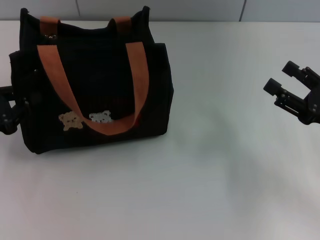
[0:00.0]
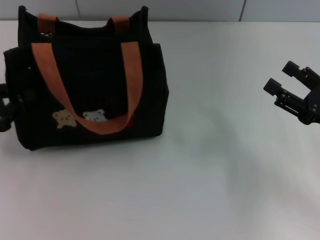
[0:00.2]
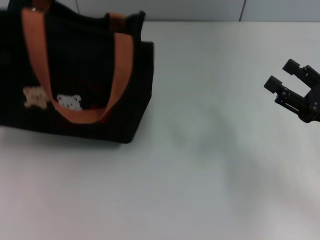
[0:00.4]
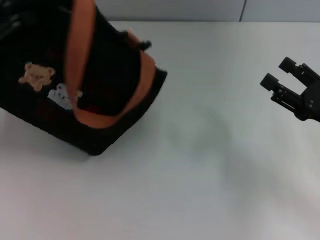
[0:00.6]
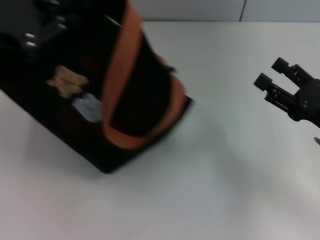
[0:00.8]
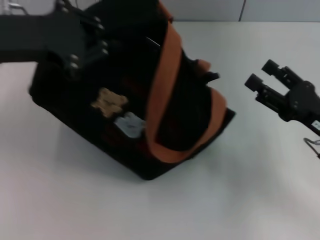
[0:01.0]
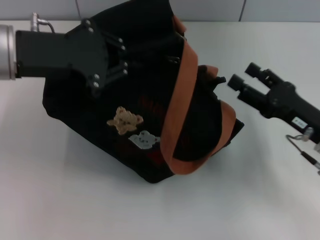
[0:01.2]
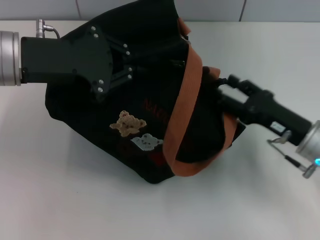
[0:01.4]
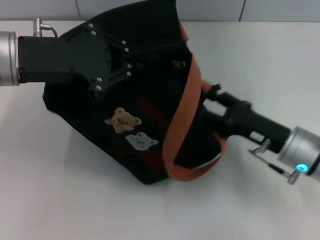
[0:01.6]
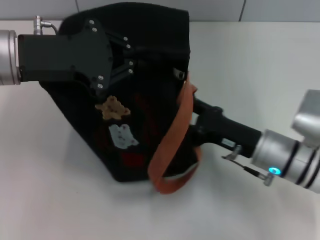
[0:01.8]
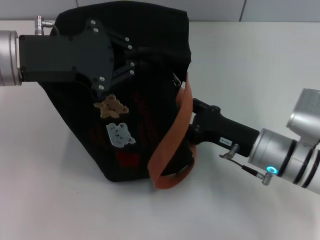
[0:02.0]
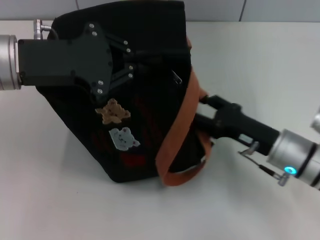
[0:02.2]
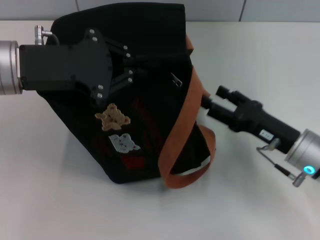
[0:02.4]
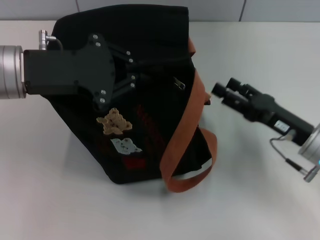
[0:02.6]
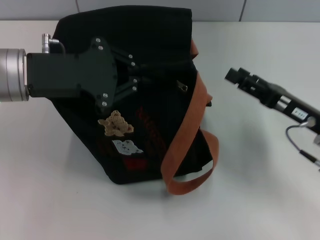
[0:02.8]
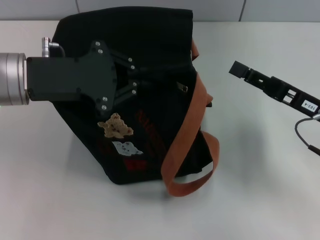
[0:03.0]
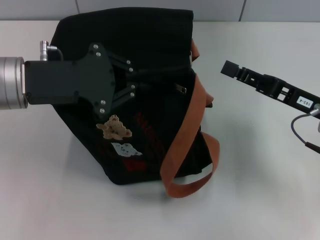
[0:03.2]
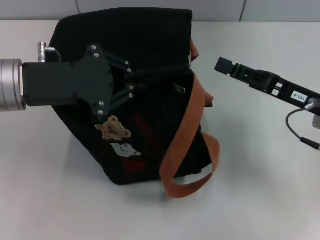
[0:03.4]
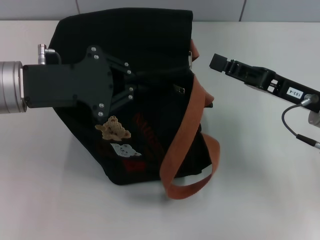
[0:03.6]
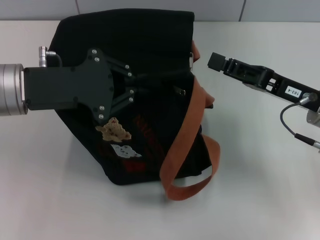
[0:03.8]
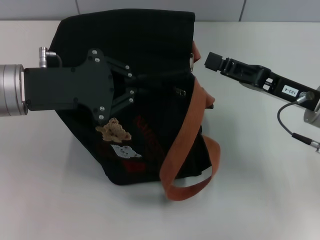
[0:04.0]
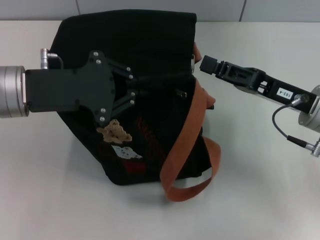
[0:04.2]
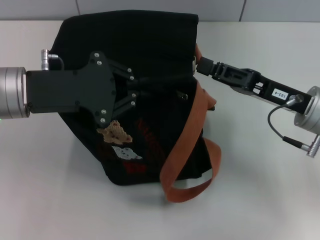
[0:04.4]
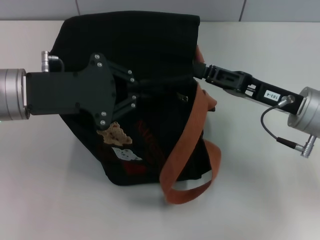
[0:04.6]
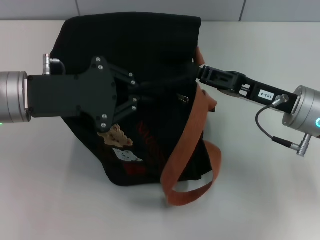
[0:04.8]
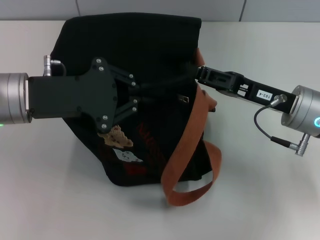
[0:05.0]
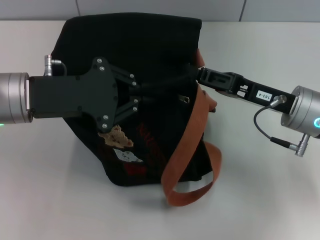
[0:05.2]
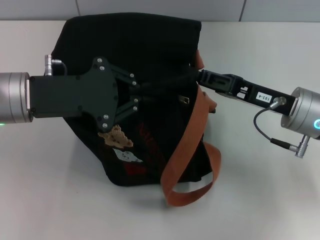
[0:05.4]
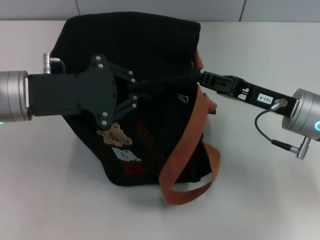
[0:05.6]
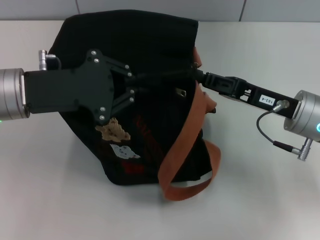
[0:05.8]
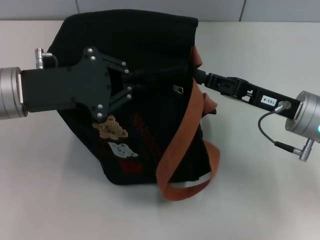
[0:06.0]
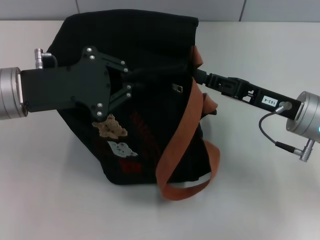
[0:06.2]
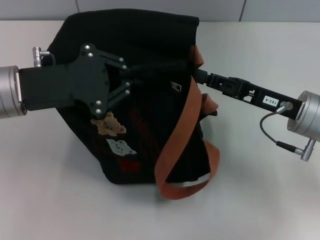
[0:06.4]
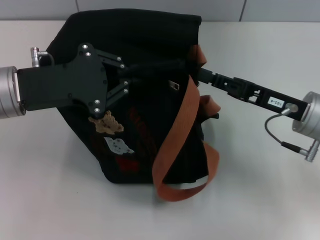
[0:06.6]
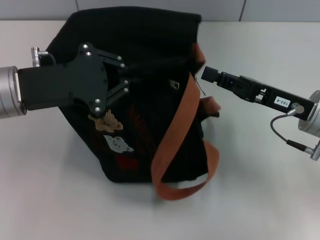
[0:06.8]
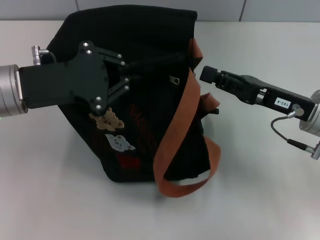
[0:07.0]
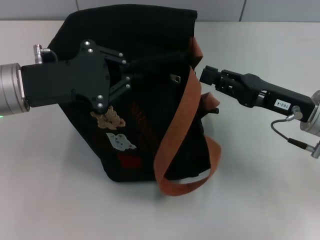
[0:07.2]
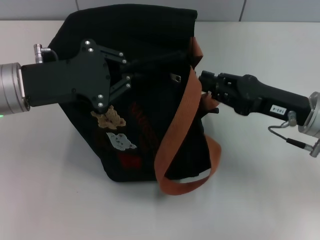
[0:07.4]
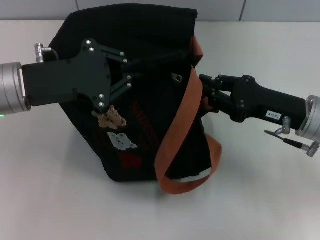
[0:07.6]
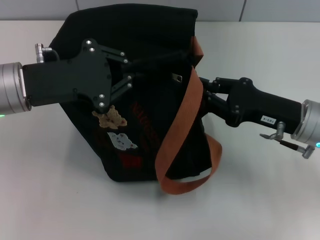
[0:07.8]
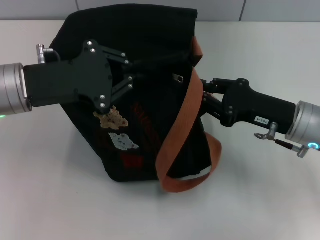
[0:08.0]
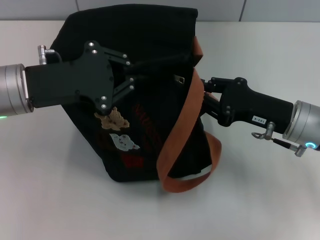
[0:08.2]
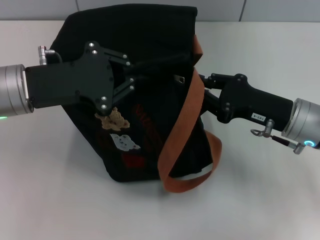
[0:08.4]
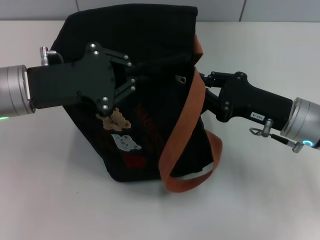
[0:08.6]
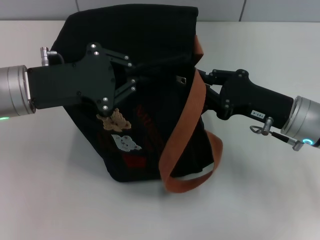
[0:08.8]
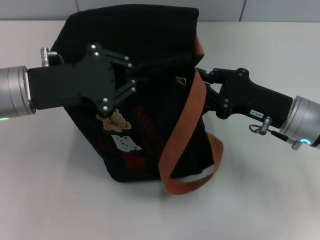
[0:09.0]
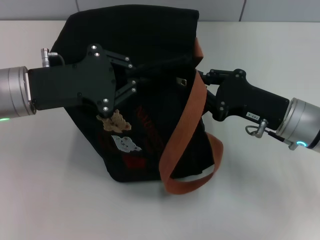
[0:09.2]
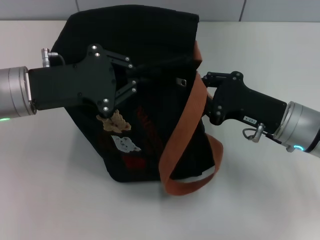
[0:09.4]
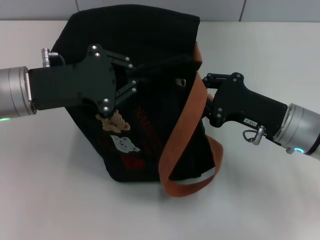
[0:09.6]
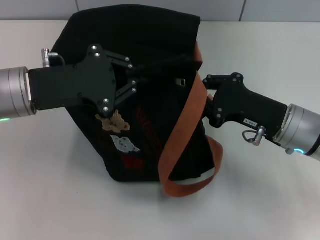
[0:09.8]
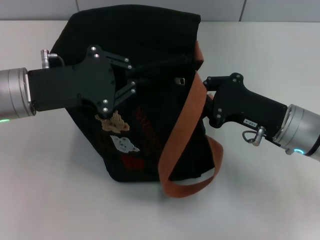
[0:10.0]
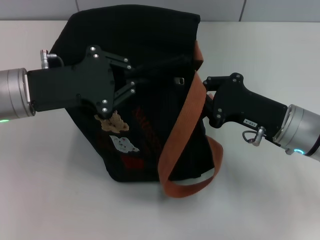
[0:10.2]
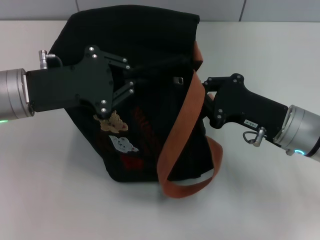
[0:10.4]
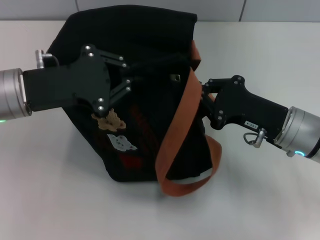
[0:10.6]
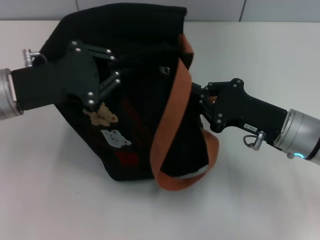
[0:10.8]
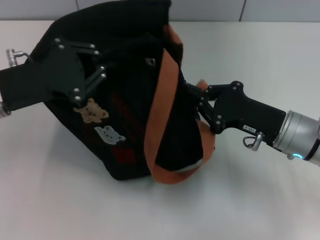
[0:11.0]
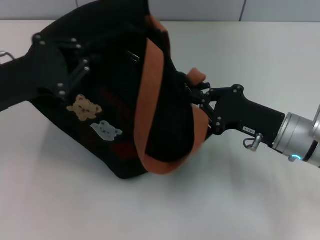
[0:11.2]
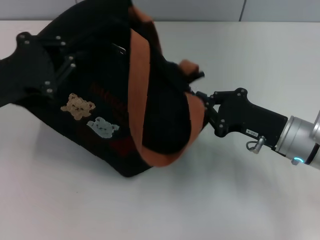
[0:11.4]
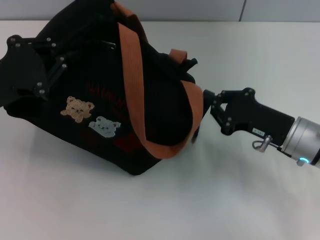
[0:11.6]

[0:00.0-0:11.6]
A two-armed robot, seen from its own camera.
0:00.0 to 0:01.4: The left gripper shifts some 20 cm to the right, upward and forward. Meanwhile the right gripper moves to the left, some 5 cm.
0:01.4 to 0:02.8: The right gripper reaches roughly 5 cm to the left, then returns.
0:02.8 to 0:04.4: The right gripper shifts by roughly 5 cm, and closes up.
0:04.4 to 0:07.2: The grippers make only small movements.
0:08.8 to 0:10.2: The grippers stay close to where they were, moving slightly.
0:10.2 to 0:11.6: The left gripper heads to the left, covering approximately 5 cm.

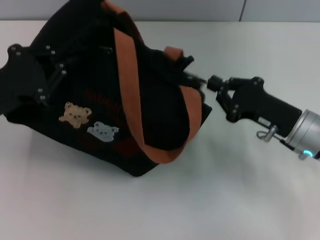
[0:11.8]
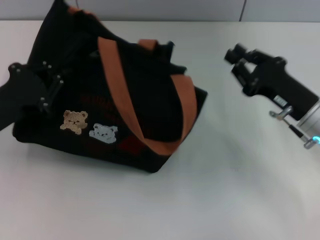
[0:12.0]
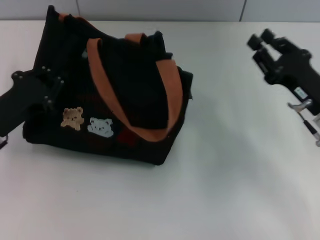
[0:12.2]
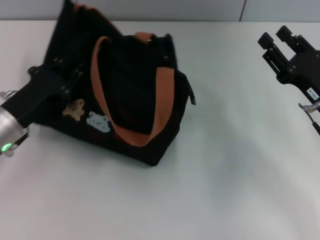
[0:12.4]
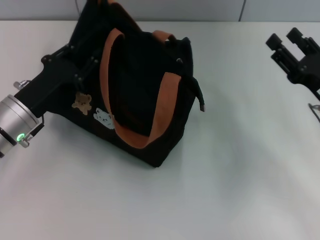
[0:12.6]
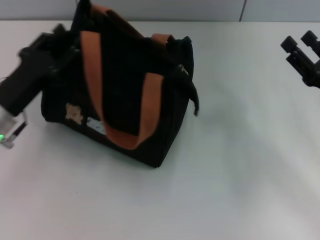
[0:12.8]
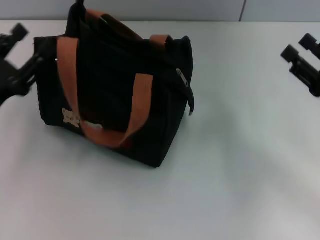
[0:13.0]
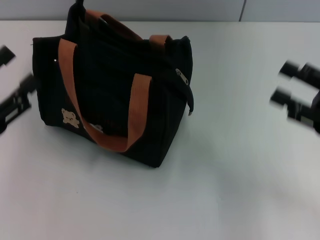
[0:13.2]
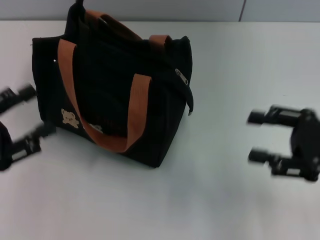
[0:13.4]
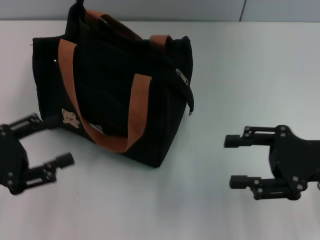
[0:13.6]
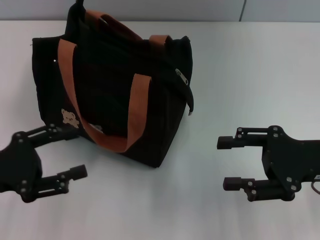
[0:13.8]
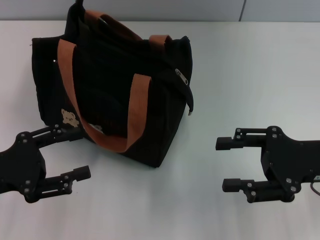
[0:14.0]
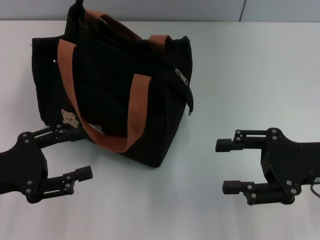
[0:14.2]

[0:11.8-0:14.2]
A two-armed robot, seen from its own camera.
Step, 0:12.0 to 0:12.8: Grab the bag with your left hand.
0:11.8 to 0:13.0: The left gripper opens up, while the right gripper moves to the right, some 10 cm, and opens its fingers.
0:13.0 to 0:14.2: The left gripper is displaced backward by roughly 5 cm. Meanwhile the right gripper ends up some 5 cm from where it was.

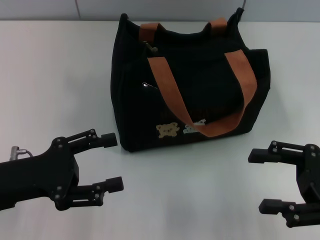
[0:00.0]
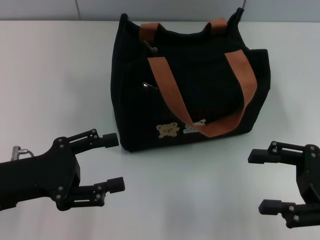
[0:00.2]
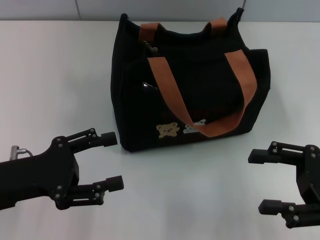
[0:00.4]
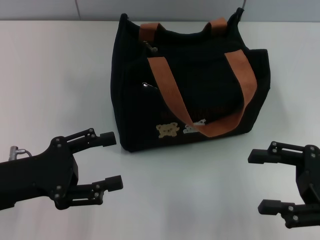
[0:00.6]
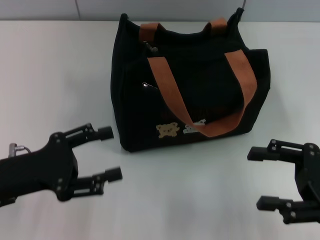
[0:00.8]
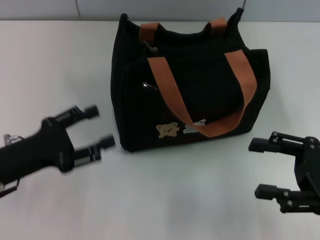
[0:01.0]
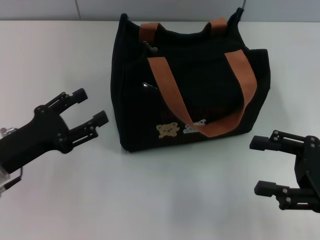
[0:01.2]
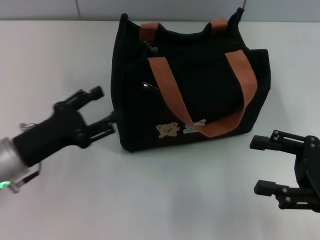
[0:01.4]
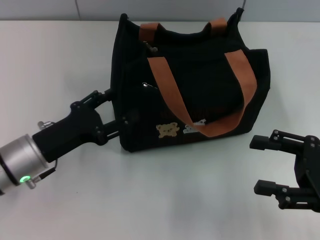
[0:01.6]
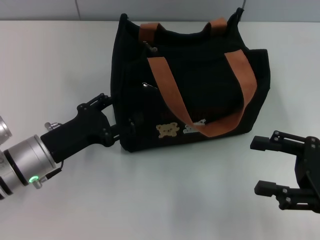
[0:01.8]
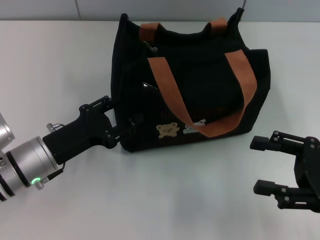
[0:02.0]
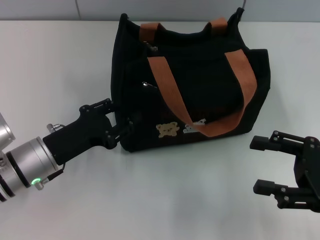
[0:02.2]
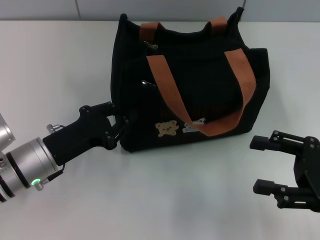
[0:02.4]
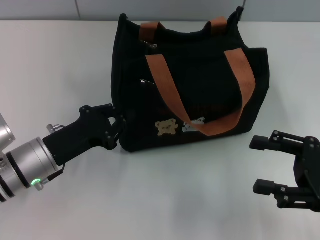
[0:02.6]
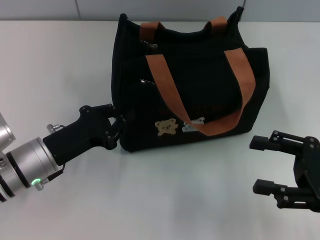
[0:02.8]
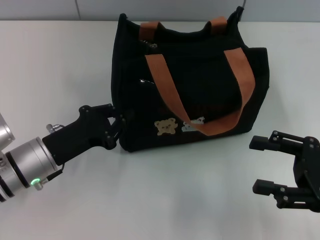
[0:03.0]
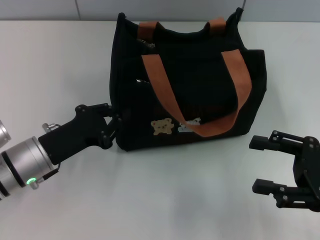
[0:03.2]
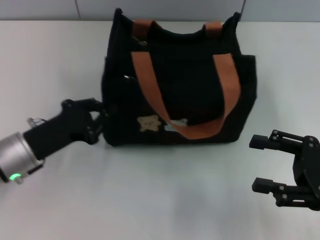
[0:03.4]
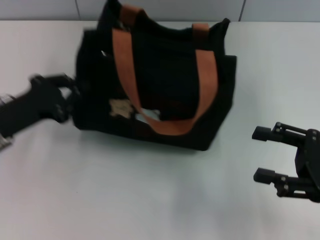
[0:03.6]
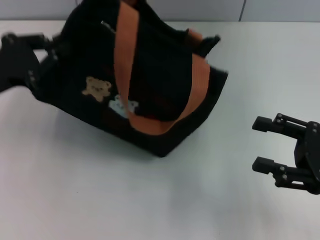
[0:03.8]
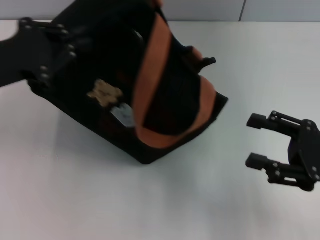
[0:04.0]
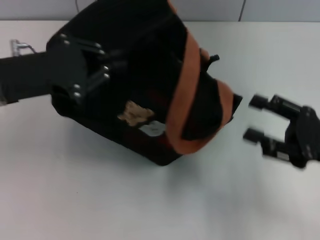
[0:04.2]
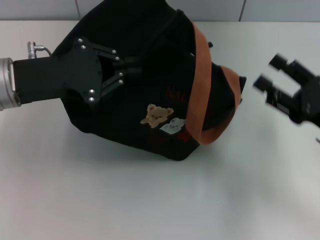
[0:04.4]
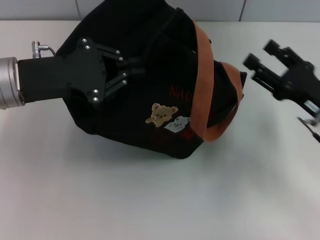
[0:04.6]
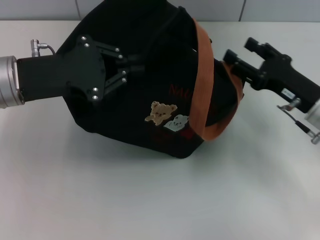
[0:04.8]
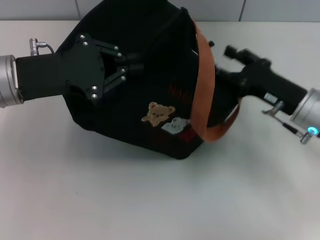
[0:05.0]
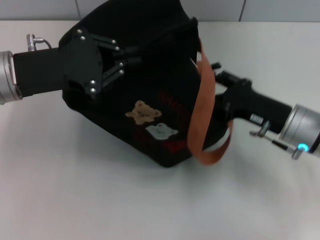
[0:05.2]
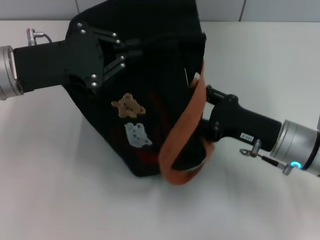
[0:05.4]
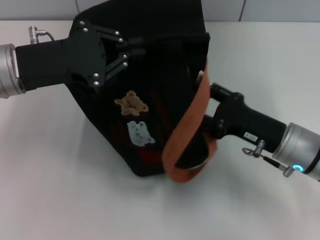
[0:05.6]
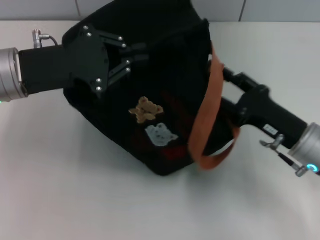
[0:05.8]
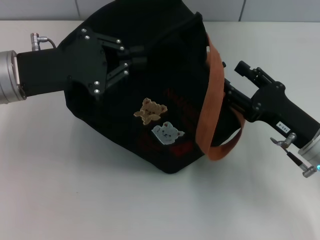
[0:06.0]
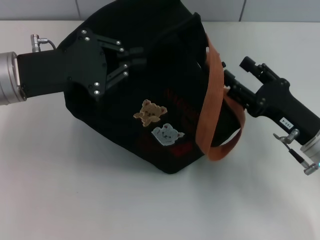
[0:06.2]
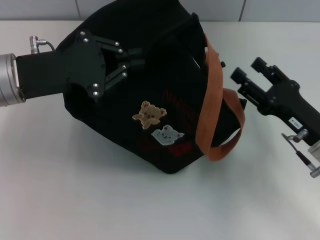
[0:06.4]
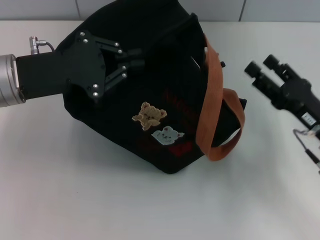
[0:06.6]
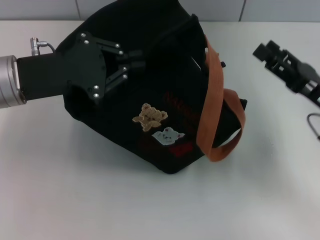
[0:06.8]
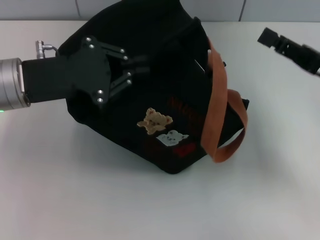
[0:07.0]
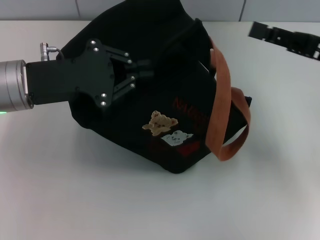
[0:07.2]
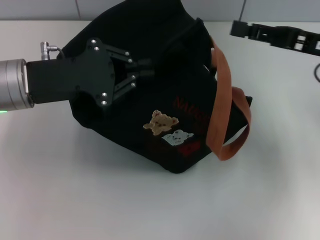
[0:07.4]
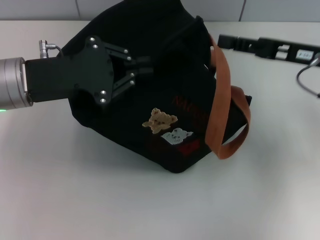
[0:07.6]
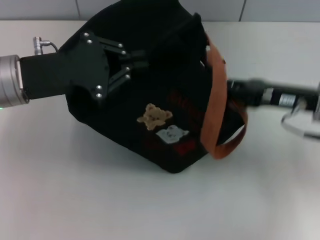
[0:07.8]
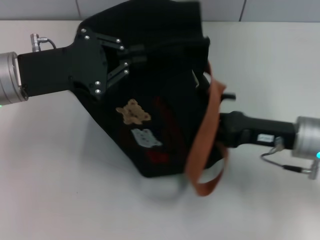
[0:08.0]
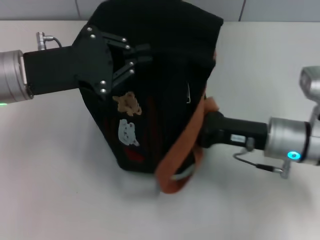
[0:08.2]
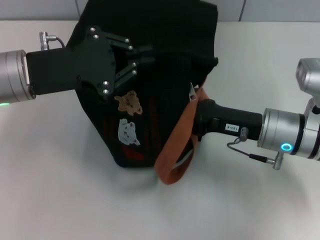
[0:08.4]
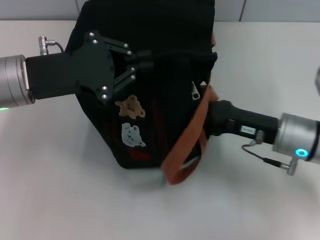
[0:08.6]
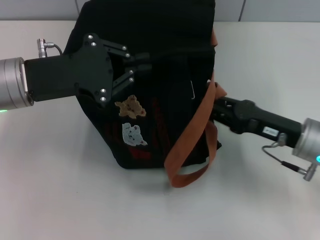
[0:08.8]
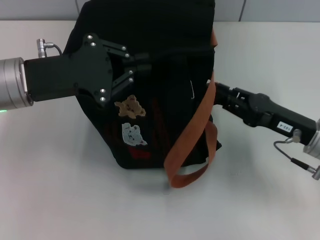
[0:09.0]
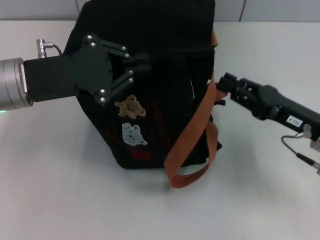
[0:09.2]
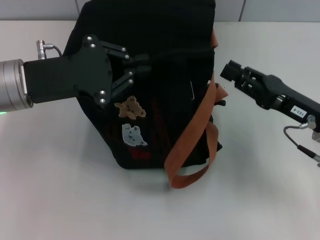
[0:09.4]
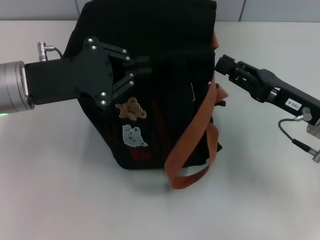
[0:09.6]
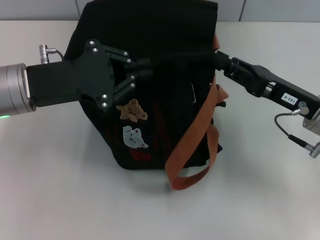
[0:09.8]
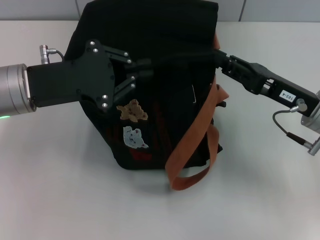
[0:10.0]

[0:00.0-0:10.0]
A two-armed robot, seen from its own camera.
0:01.4 to 0:02.8: The left gripper closes up.
0:02.8 to 0:04.2: The left gripper travels upward by about 15 cm.
0:04.2 to 0:05.8: The right gripper shifts roughly 5 cm to the left.
0:05.8 to 0:07.2: The right gripper goes approximately 15 cm upward, to the right and forward.
0:07.2 to 0:08.6: The right gripper heads downward and to the left, covering roughly 15 cm, and closes.
0:08.6 to 0:10.0: There are only small adjustments of the grippers.
